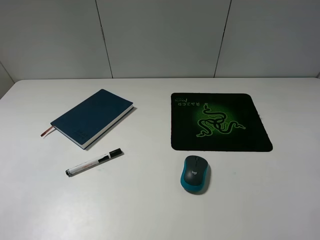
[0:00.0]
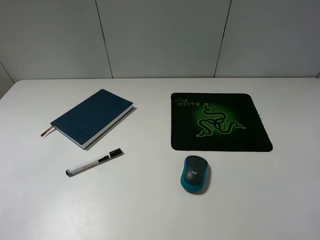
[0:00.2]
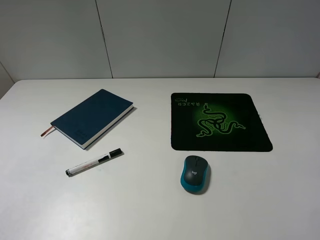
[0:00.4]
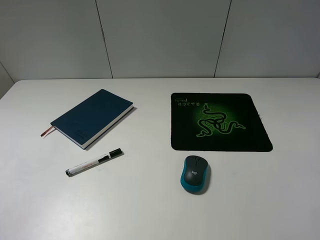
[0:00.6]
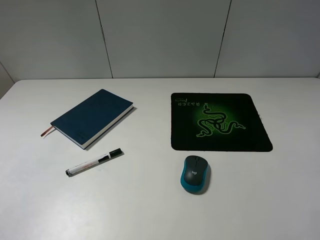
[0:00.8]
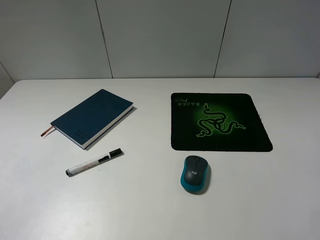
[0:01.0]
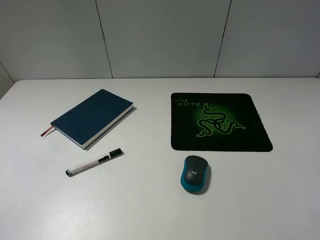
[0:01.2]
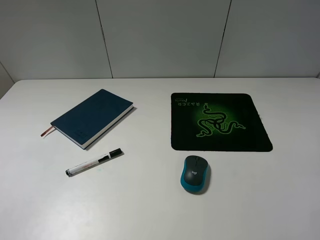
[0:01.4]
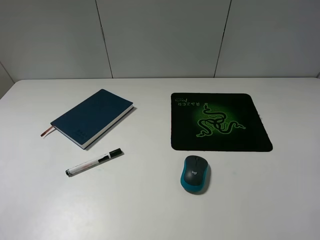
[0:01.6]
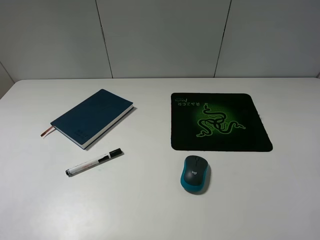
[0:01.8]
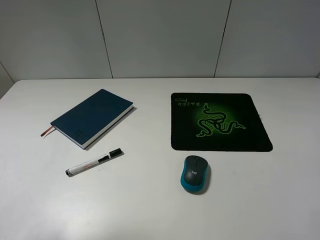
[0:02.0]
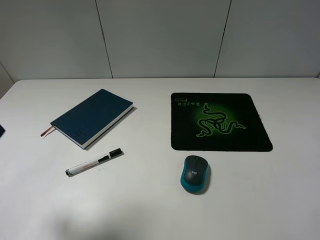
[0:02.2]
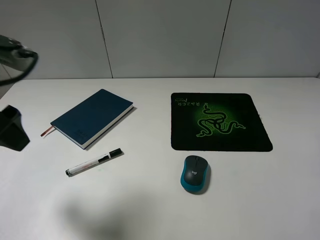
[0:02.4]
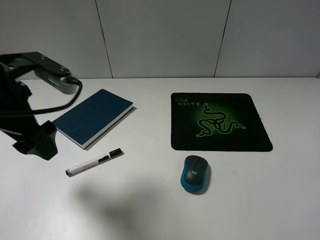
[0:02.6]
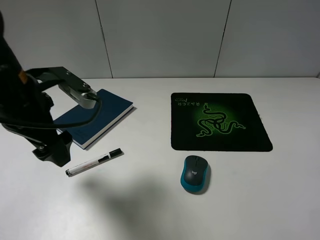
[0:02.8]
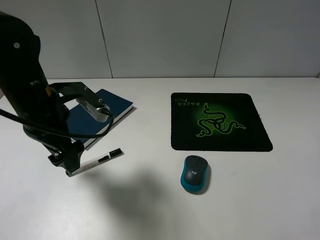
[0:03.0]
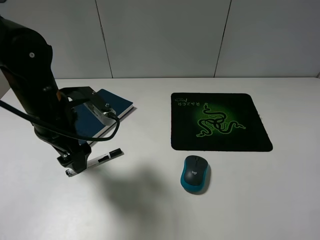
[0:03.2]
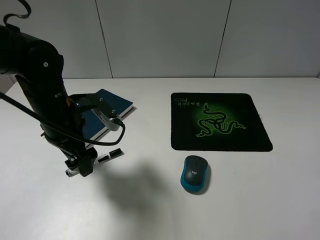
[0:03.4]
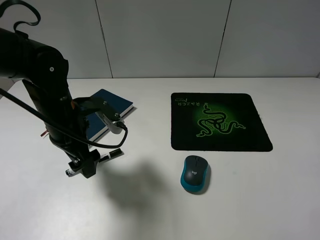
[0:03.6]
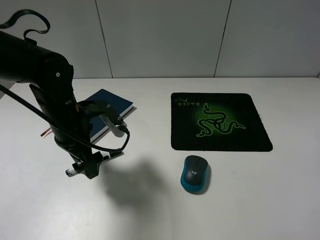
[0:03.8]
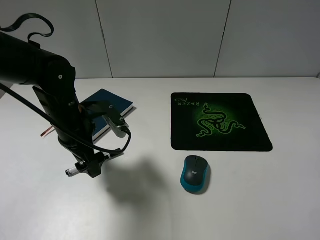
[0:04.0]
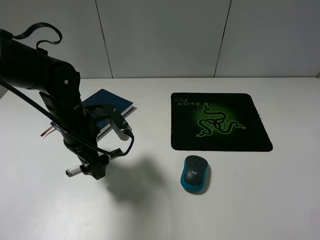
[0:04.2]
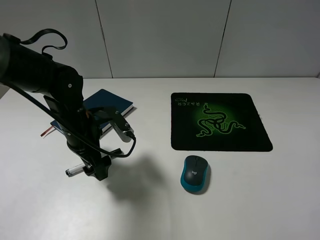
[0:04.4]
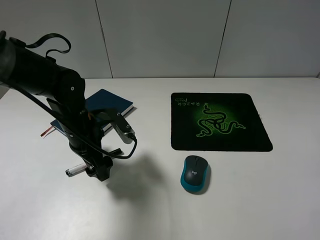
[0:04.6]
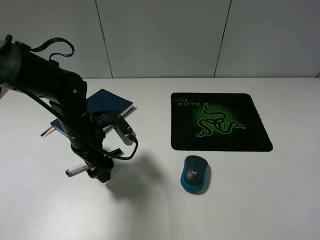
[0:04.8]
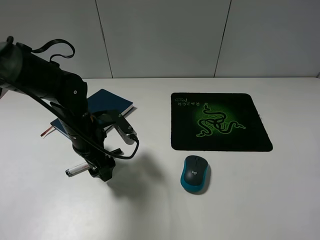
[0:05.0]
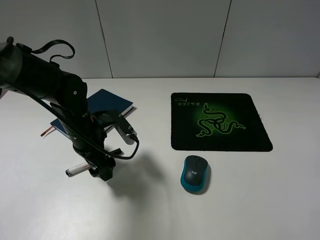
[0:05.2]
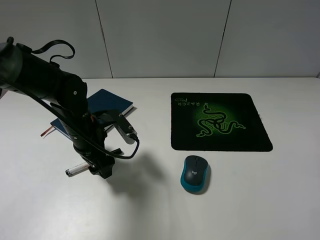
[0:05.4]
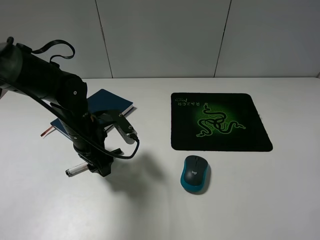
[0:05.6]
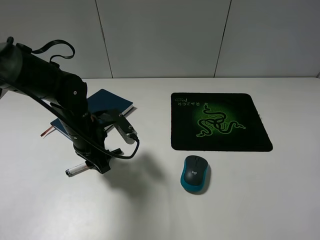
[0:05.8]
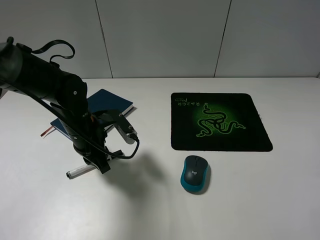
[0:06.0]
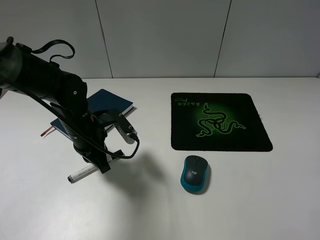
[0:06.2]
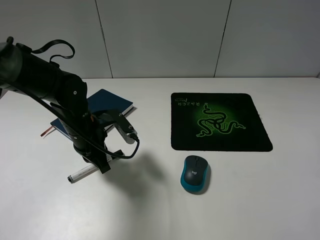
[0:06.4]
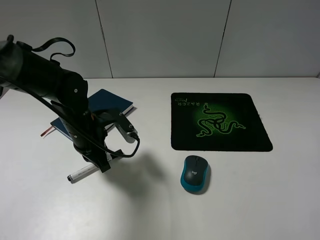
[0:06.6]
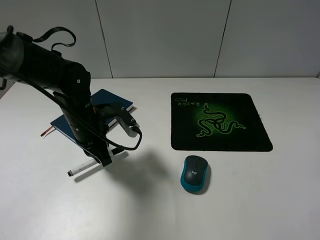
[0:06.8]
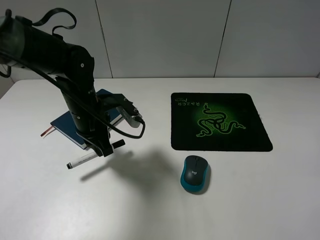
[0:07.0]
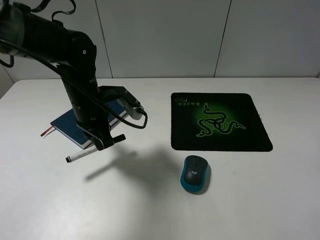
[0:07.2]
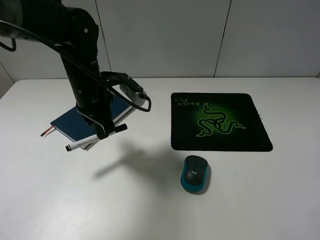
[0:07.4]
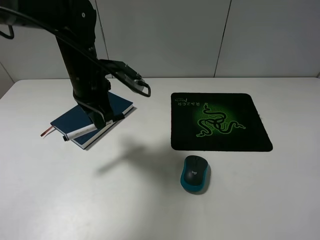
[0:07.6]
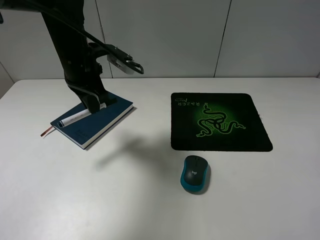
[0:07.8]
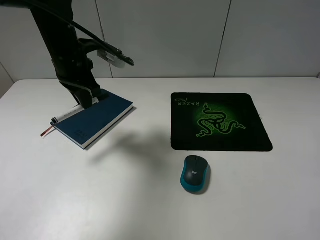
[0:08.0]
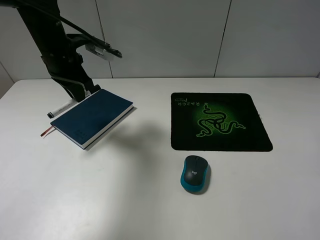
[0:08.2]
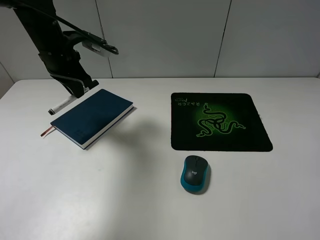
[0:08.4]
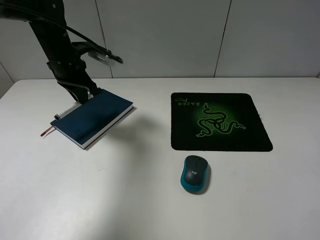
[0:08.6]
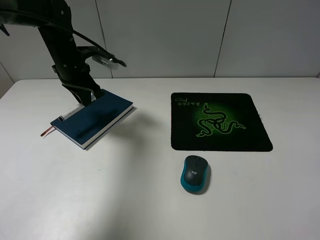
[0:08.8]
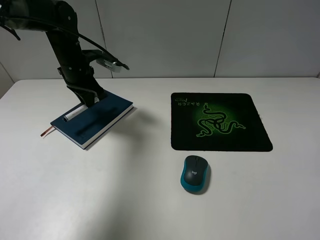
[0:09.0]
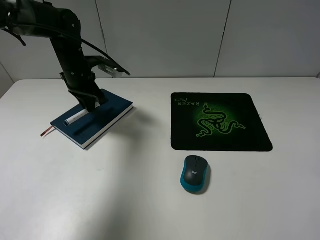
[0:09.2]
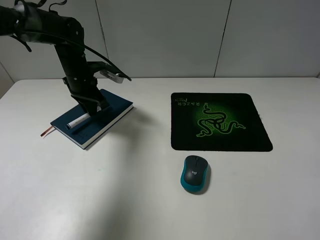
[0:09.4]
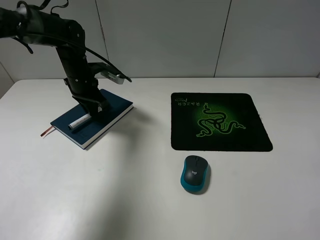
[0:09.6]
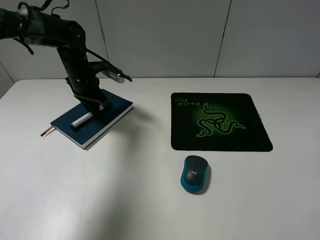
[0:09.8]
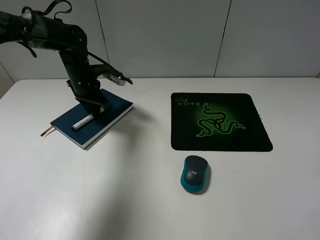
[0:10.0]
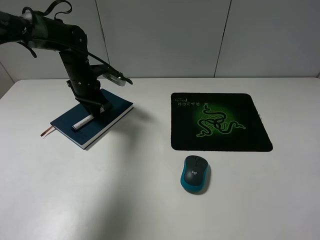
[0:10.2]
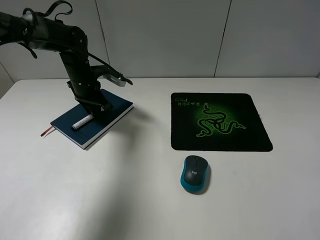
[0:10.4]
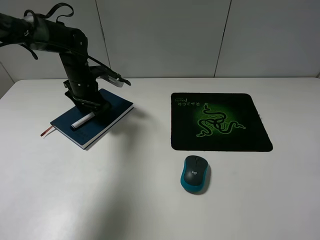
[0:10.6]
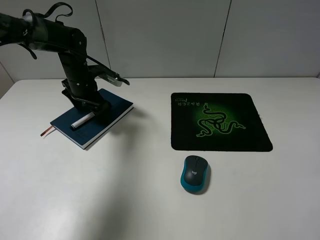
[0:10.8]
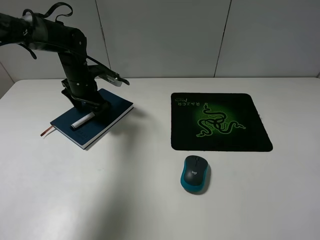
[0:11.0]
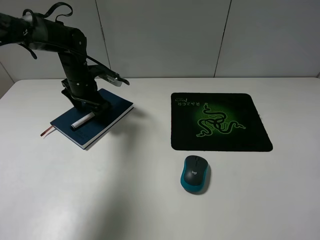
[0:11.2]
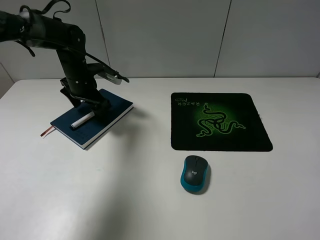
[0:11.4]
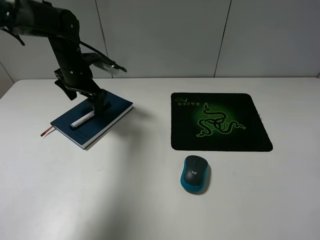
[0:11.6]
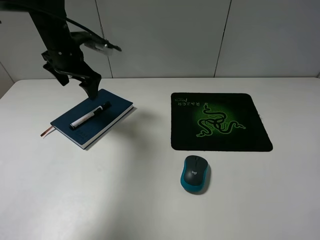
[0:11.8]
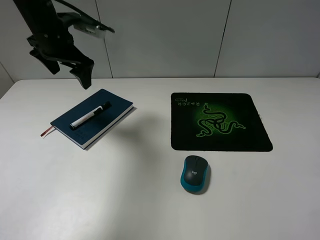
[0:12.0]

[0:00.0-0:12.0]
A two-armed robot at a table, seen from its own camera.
Step, 0:00.0 to 0:06.4: Grasp the marker with the left gripper.
Step, 0:06.6 to 0:10.8: Place the marker on the notebook with the left gripper.
0:01.6 to 0:03.0: The left gripper heads forward, downward and to the right, covering about 30 cm.
0:03.0 to 0:04.4: The left gripper goes about 10 cm downward.
0:04.4 to 0:06.0: The left gripper closes.
0:06.0 to 0:07.6: The left gripper heads upward and forward, covering roughly 10 cm.
0:07.6 to 0:09.0: The left gripper is displaced forward and to the left by approximately 10 cm.
0:09.0 to 0:10.4: The left gripper heads downward, covering some 5 cm.
0:10.4 to 0:12.0: The left gripper goes some 15 cm upward, and opens up.

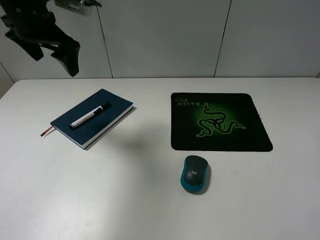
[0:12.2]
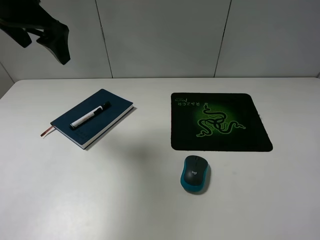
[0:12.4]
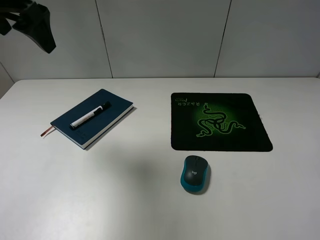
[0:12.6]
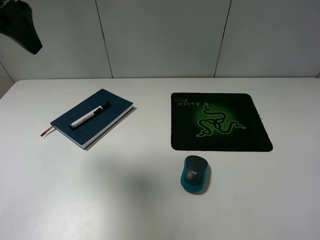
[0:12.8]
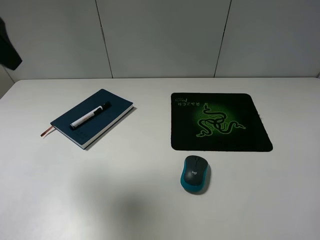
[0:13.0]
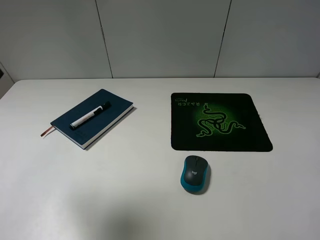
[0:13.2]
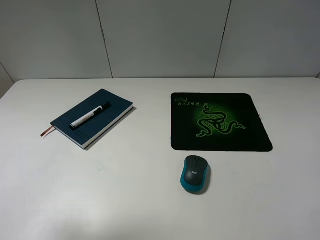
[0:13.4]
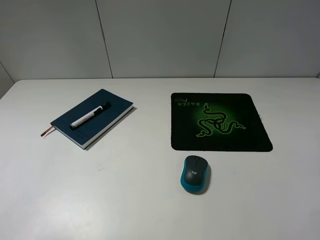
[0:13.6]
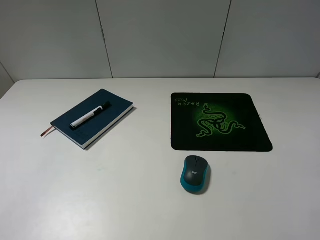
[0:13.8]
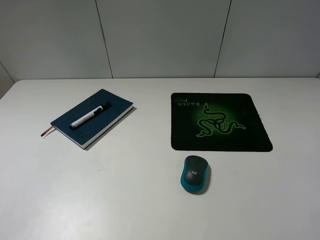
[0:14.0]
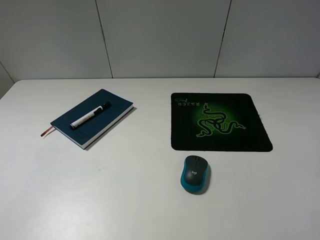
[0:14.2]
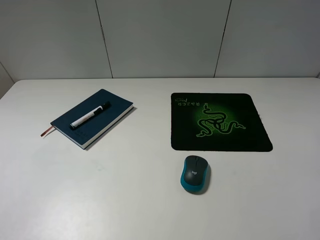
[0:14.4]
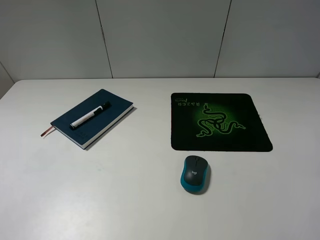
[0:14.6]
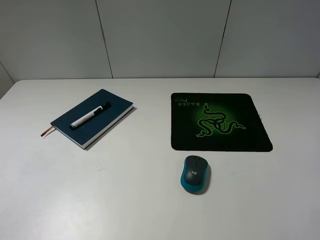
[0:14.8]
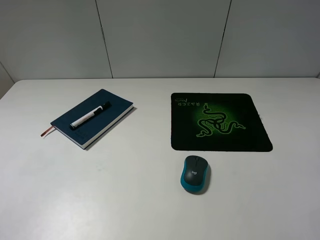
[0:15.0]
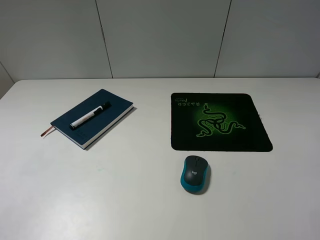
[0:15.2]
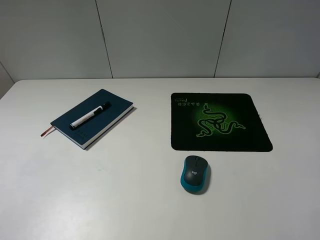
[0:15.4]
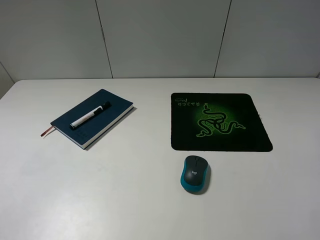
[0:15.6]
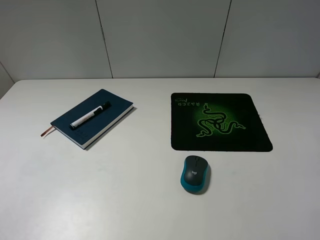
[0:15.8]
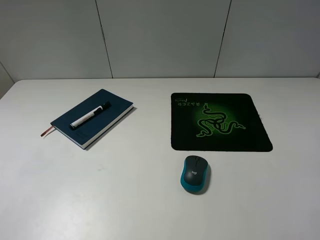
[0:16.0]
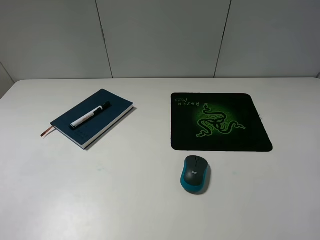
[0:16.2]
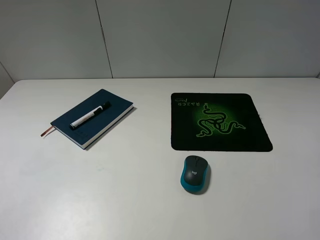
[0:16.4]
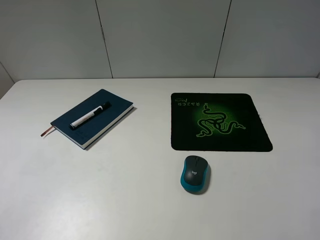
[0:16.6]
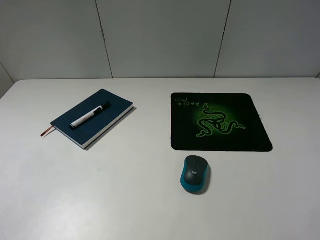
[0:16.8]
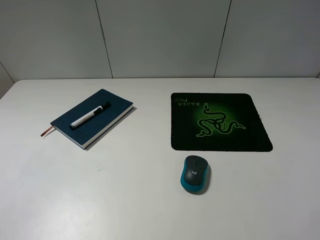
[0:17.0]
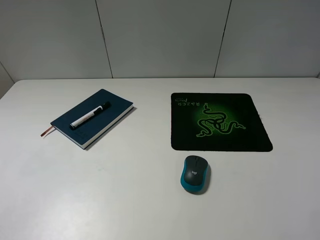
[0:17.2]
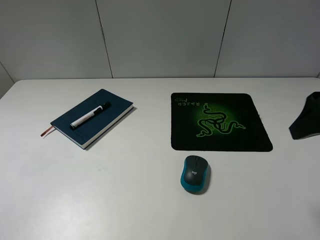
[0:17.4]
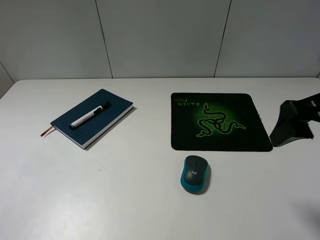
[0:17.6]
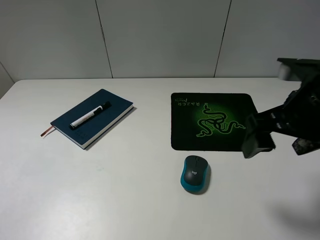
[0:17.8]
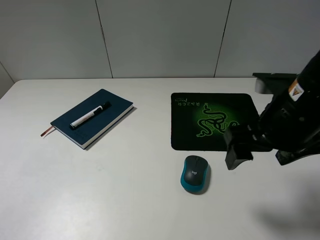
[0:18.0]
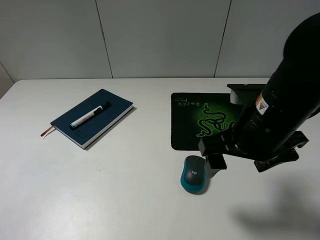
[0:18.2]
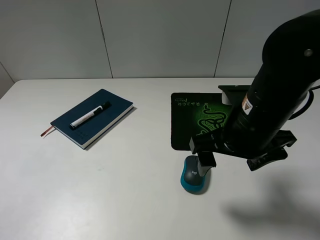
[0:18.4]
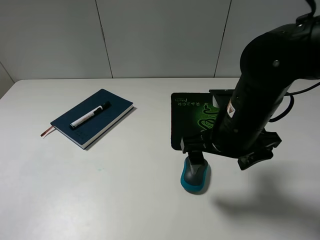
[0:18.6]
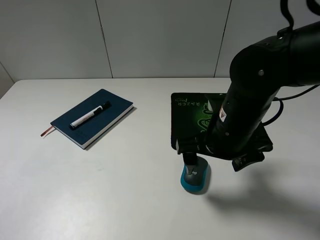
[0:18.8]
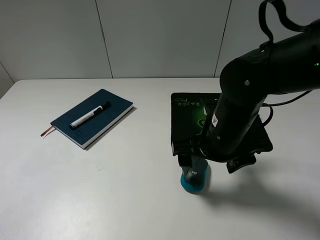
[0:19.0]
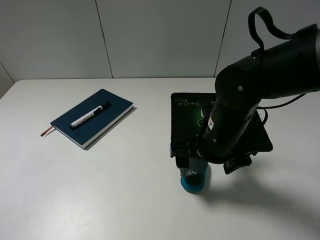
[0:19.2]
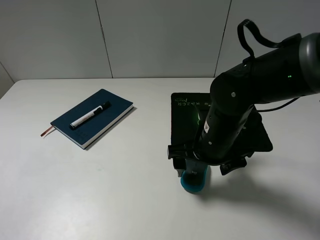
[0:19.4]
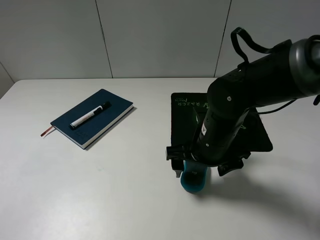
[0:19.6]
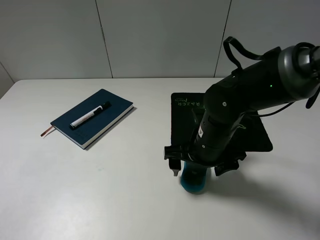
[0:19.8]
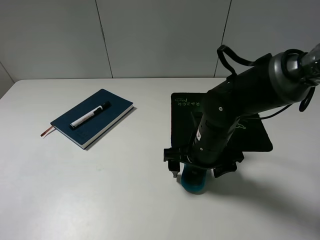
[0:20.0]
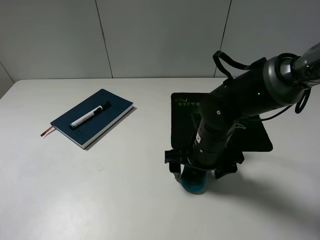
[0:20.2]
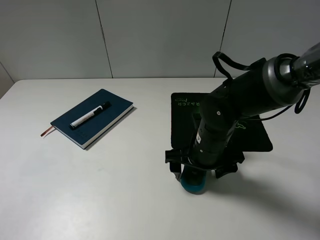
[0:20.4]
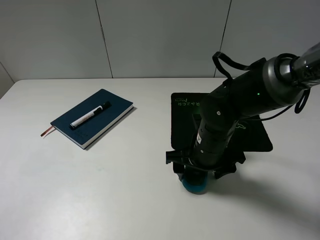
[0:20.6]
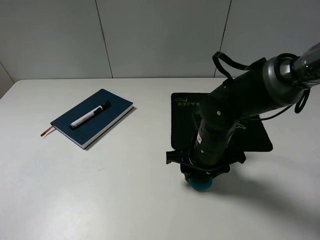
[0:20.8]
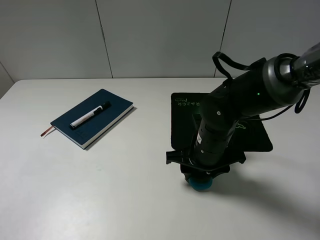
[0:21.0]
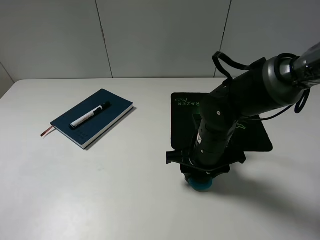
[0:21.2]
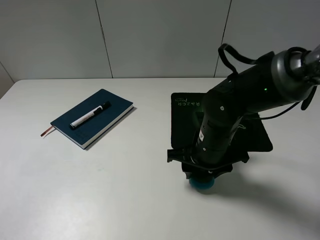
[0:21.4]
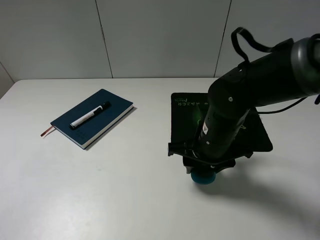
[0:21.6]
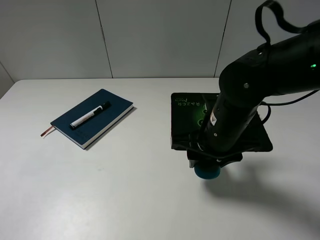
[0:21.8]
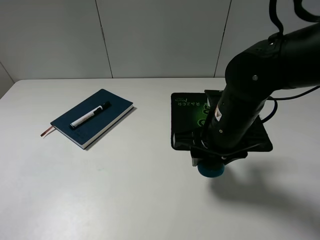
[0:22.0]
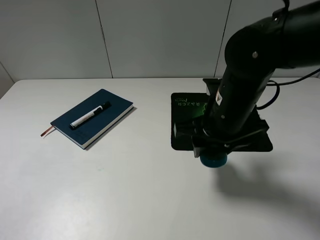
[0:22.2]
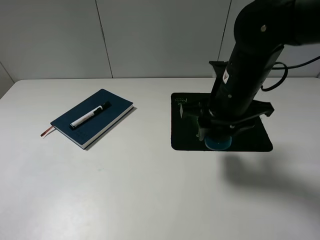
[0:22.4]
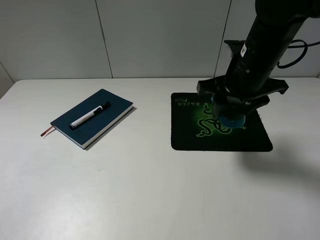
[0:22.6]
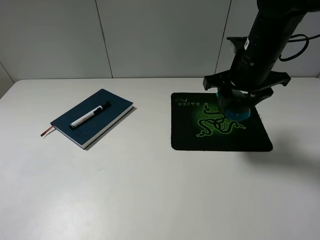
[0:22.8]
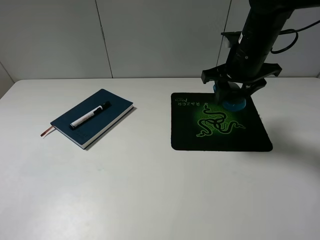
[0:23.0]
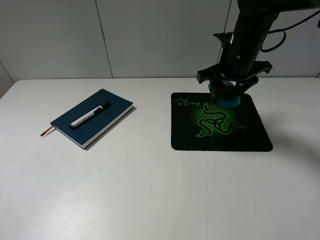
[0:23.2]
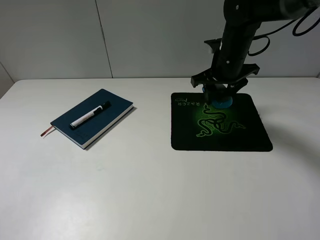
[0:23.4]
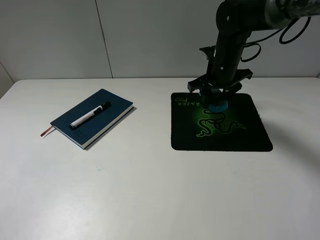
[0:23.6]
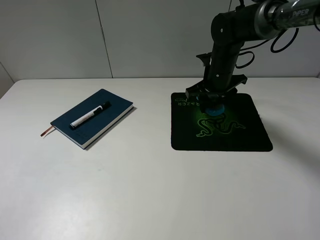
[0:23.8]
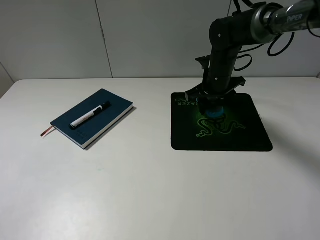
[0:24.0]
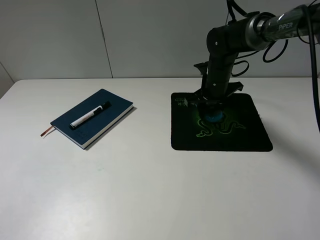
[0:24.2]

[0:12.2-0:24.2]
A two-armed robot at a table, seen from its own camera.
Step, 0:12.2 to 0:21.2: Grasp the mouse with the right gripper.
0:12.2 to 0:13.8: The left gripper heads backward, covering some 35 cm.
0:16.6 to 0:18.2: The right gripper travels forward, to the left and downward by approximately 25 cm.
0:18.2 to 0:19.8: The right gripper moves downward and forward, about 10 cm.
0:19.8 to 0:21.2: The right gripper closes up.
0:21.2 to 0:22.6: The right gripper is displaced upward, forward and to the right by approximately 15 cm.
0:22.6 to 0:24.2: The right gripper shifts roughly 15 cm forward and downward.
